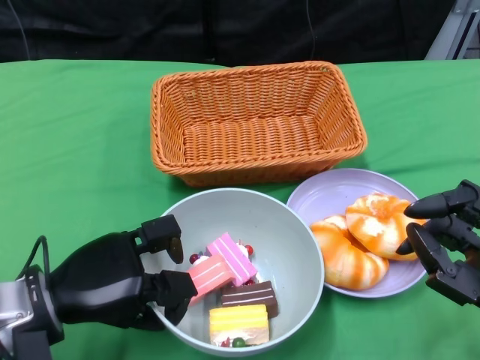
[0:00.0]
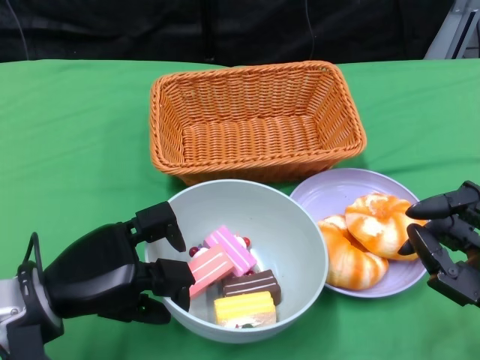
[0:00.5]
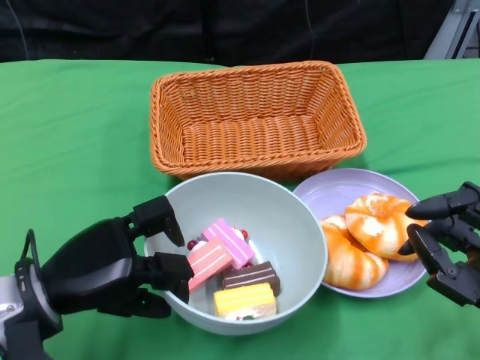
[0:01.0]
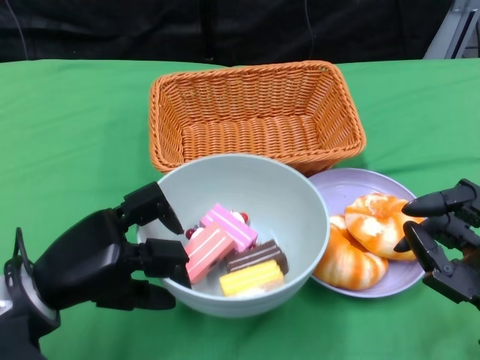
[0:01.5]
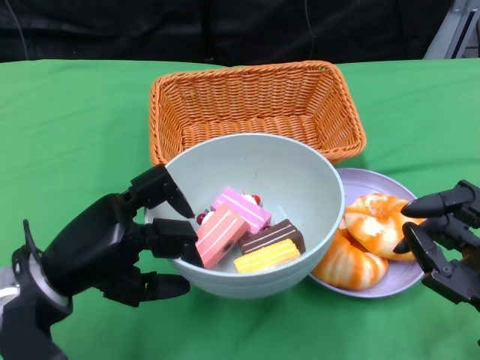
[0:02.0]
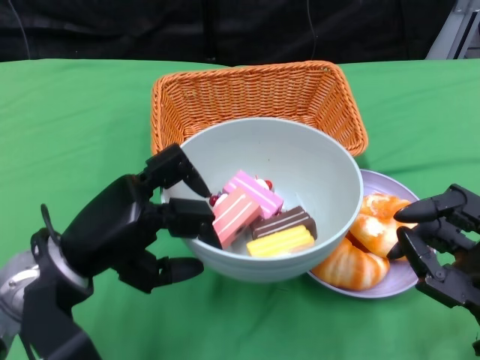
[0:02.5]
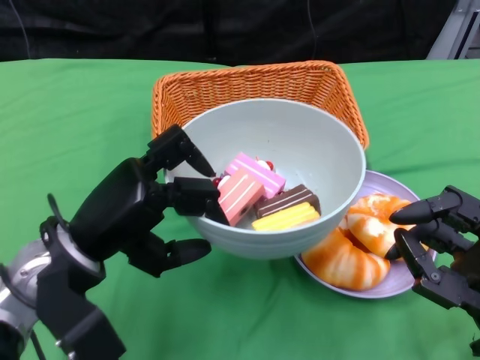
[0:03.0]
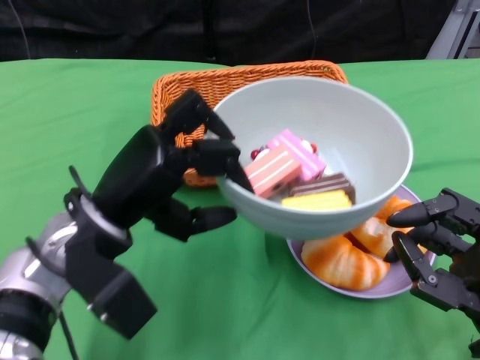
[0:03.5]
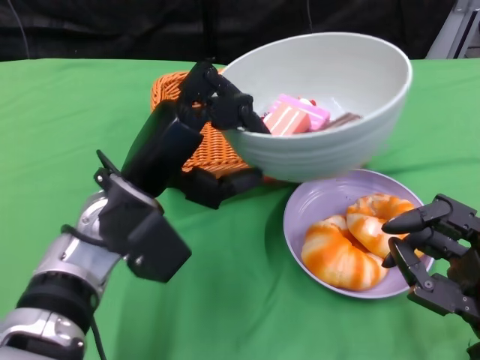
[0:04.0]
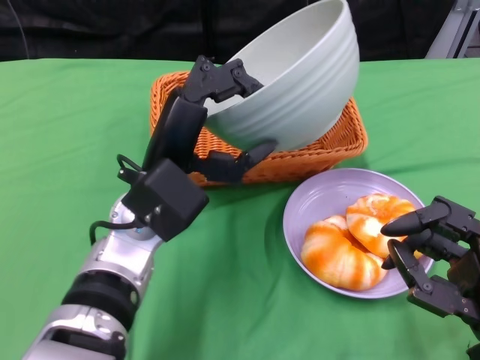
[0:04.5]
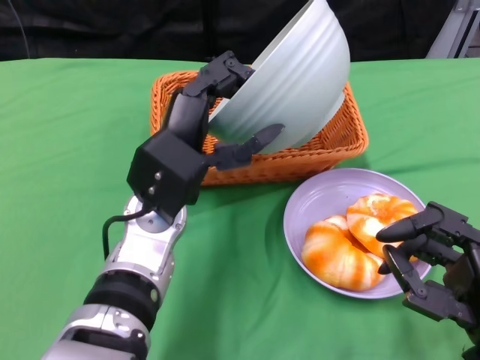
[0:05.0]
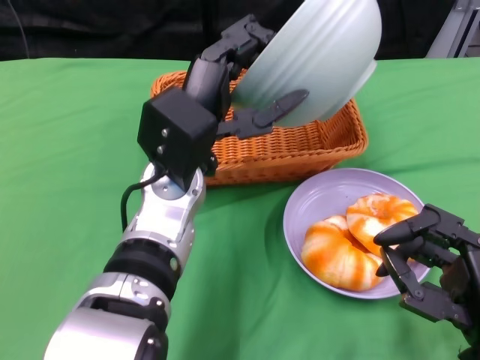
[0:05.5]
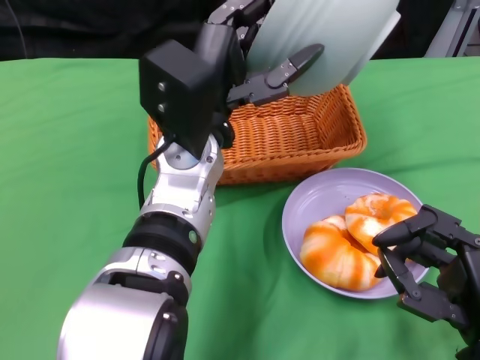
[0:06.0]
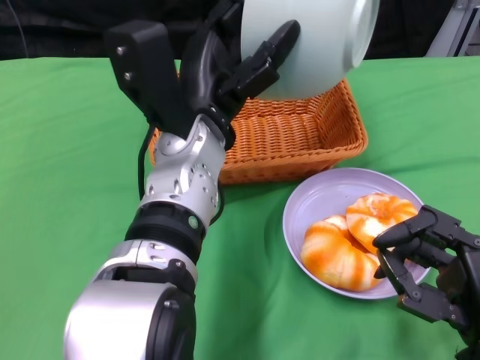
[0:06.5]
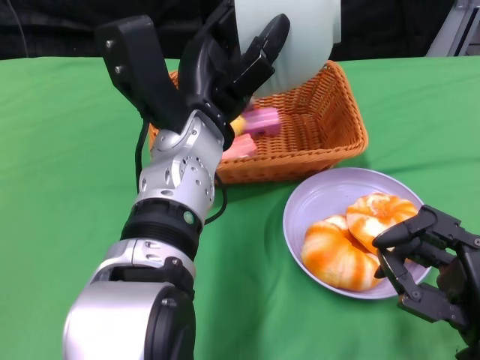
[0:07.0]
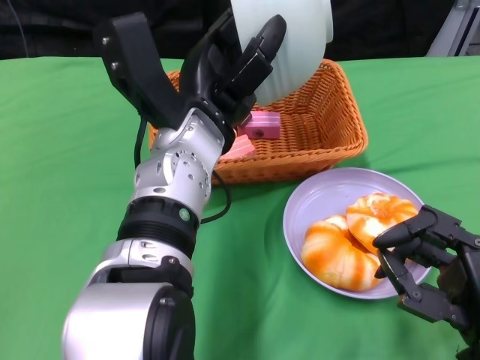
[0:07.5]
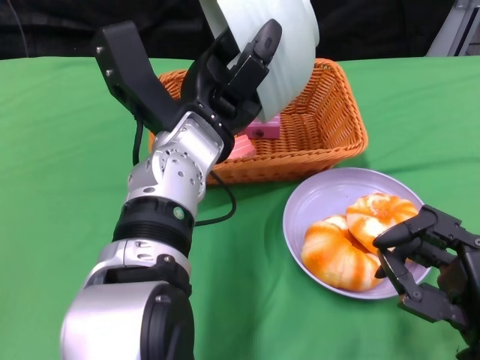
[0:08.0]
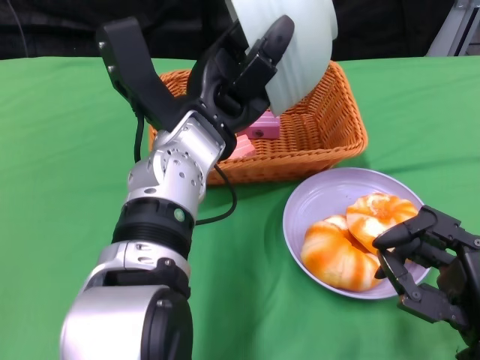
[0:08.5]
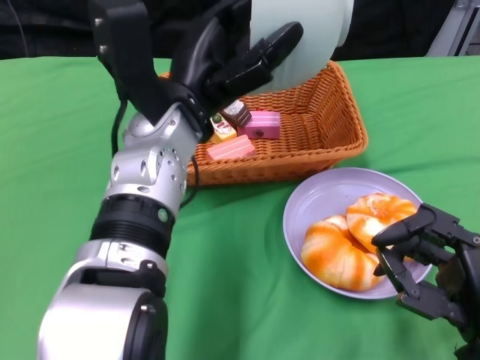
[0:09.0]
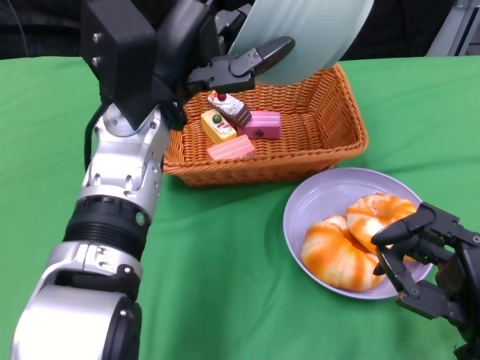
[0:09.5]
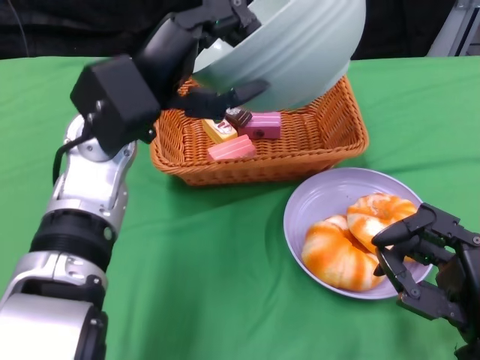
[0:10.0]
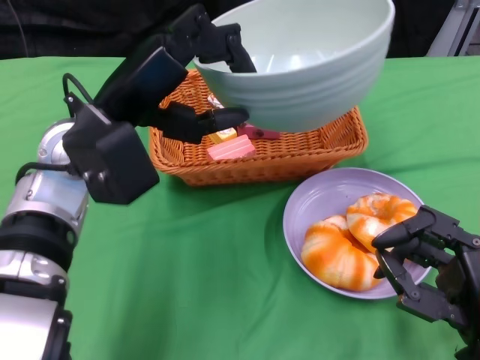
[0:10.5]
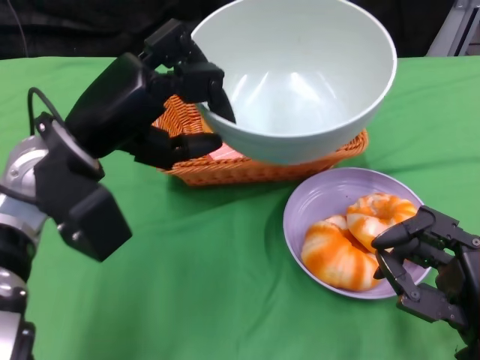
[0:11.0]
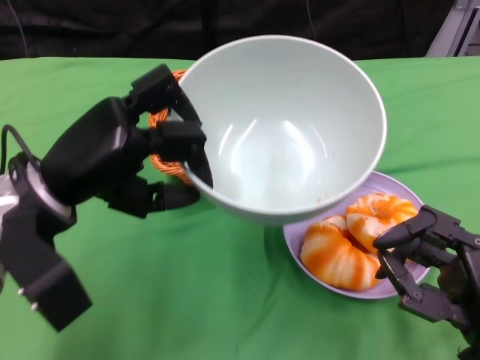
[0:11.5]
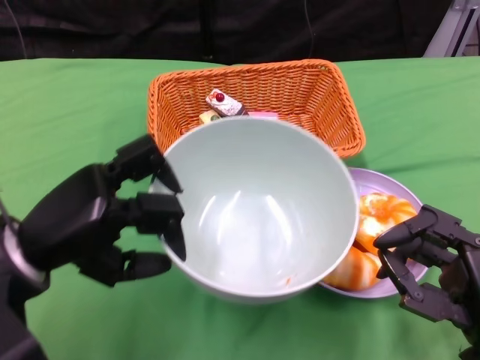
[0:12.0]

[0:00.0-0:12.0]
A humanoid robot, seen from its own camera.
Step, 0:00.0 to 0:07.0: Pour the cake into the basket with the left gripper.
0:02.0 to 0:04.0: The left hand heads to the right and forward, covering about 10 cm.
0:04.0 to 0:06.0: The left hand travels to the right by roughly 5 cm.
0:08.0 to 0:10.0: The left hand shifts approximately 5 cm to the left.
0:10.0 to 0:12.0: The left hand travels to the left, backward and downward by about 15 cm.

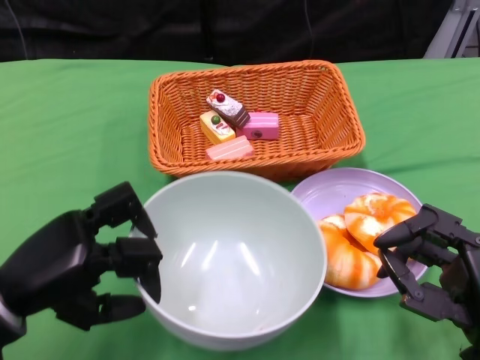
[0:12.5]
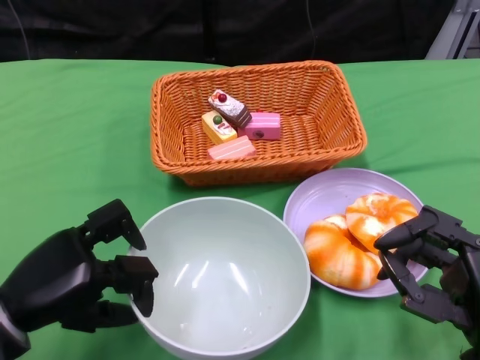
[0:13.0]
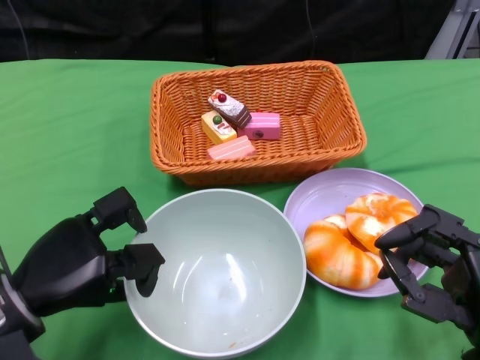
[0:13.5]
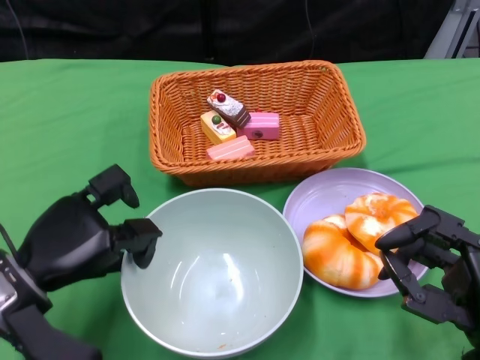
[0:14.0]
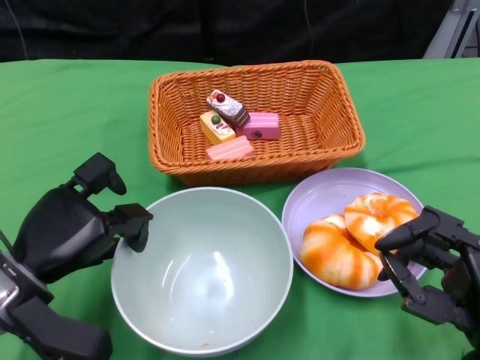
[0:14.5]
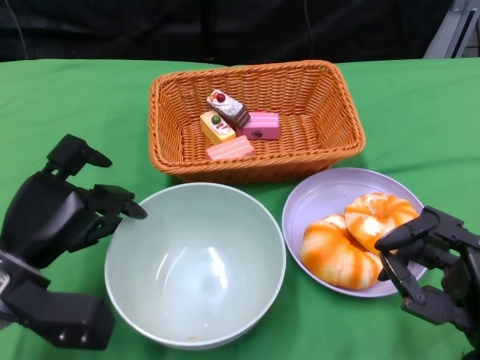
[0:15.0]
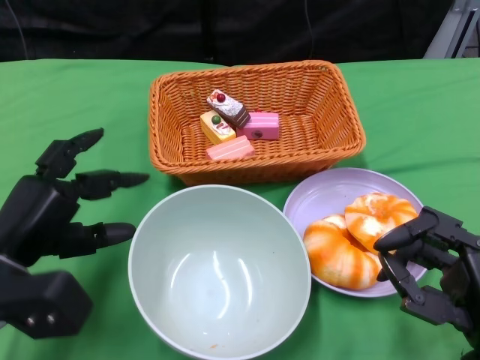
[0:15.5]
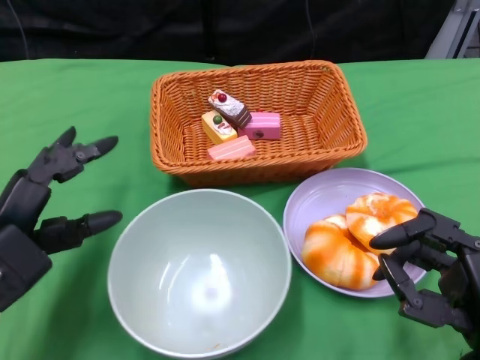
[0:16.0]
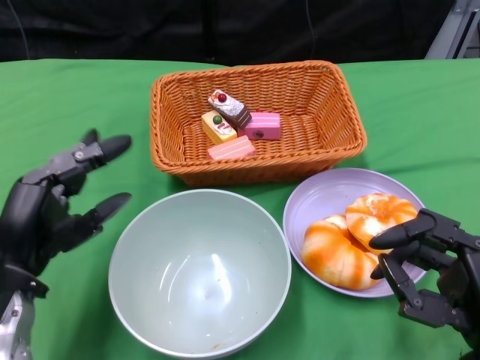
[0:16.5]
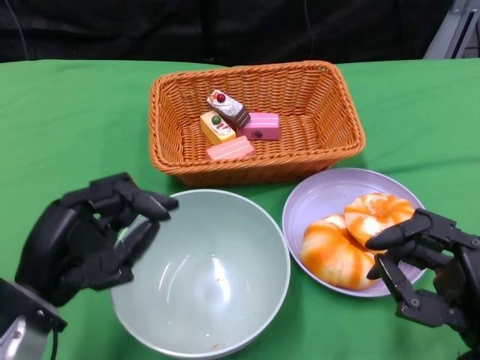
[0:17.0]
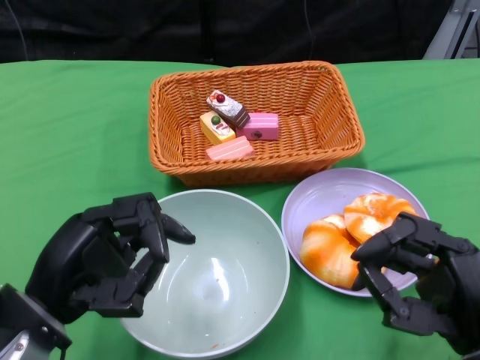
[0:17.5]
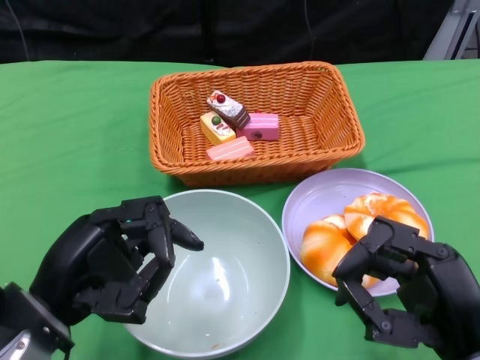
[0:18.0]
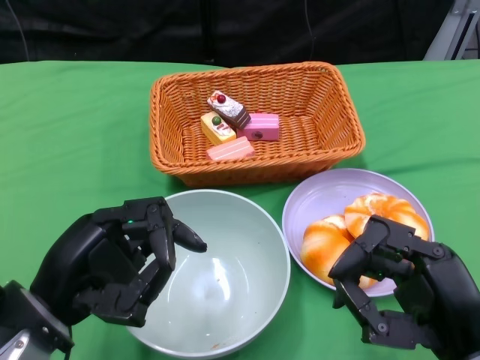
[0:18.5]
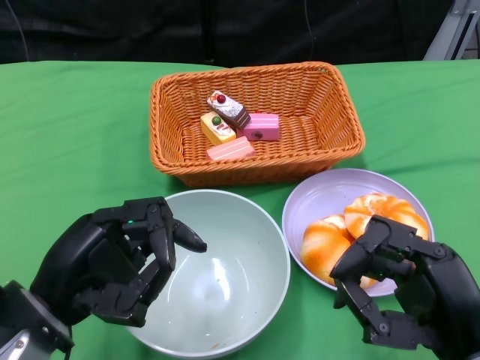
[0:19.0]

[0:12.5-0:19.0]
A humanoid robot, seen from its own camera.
Step, 0:12.5 to 0:15.0: Place the bowl on the table with the left gripper.
0:12.5 to 0:14.5: The left hand changes place by approximately 5 cm.
0:14.5 to 0:17.0: The left hand changes place by some 5 cm.
